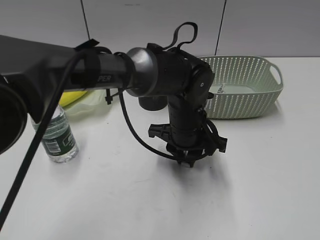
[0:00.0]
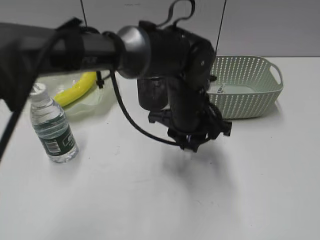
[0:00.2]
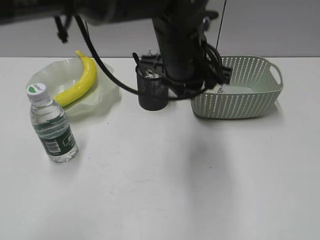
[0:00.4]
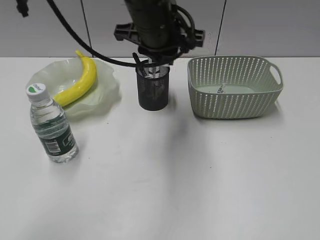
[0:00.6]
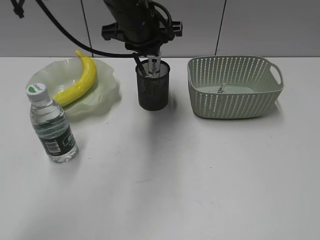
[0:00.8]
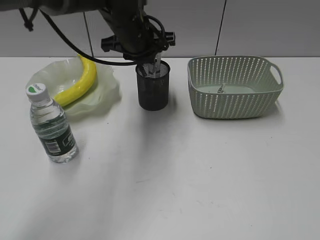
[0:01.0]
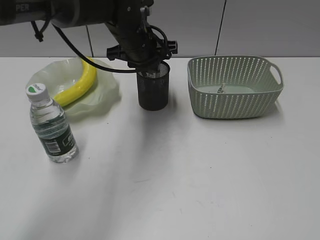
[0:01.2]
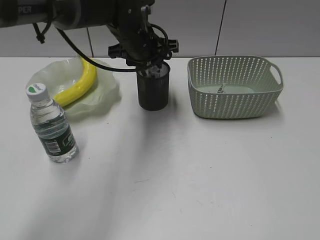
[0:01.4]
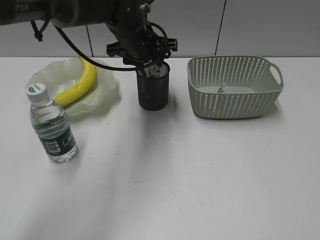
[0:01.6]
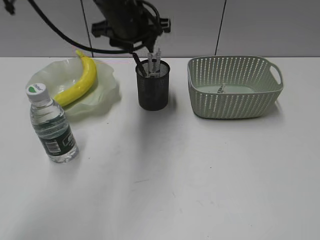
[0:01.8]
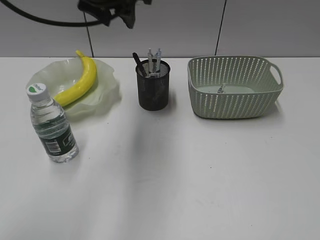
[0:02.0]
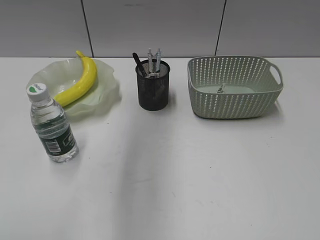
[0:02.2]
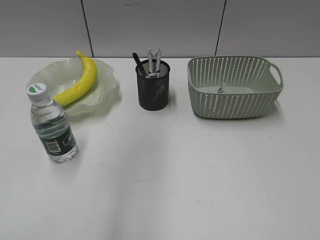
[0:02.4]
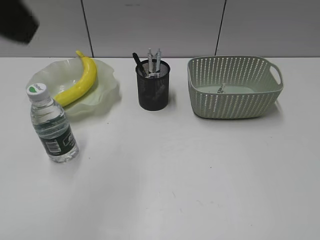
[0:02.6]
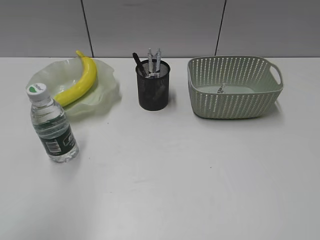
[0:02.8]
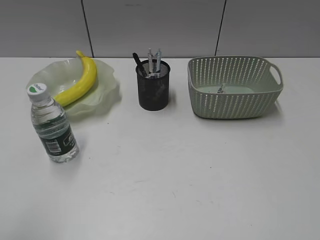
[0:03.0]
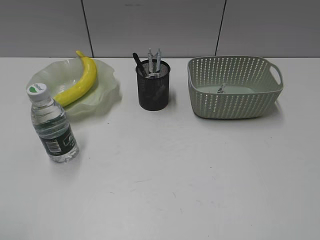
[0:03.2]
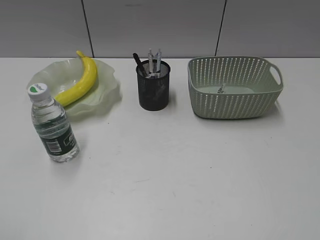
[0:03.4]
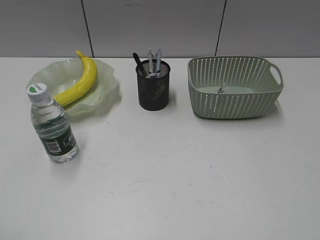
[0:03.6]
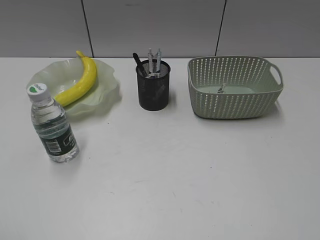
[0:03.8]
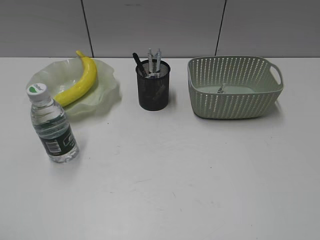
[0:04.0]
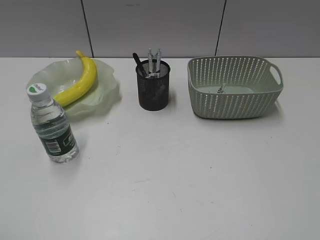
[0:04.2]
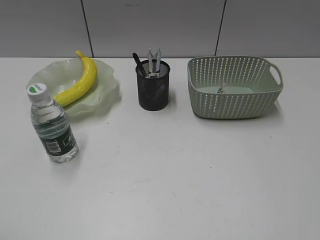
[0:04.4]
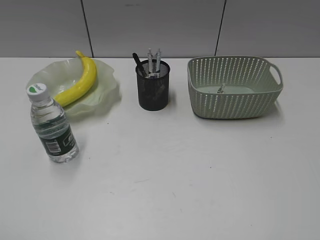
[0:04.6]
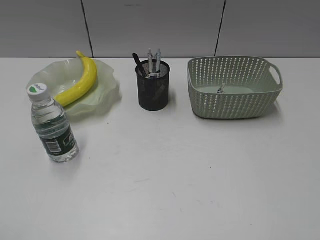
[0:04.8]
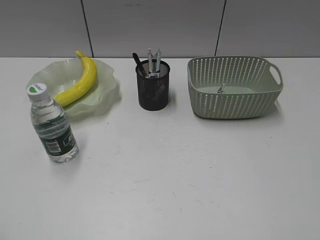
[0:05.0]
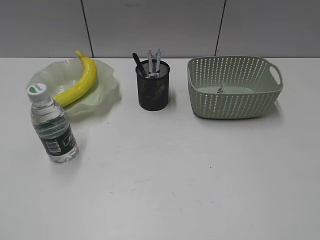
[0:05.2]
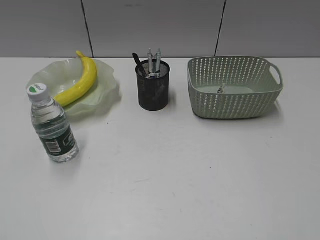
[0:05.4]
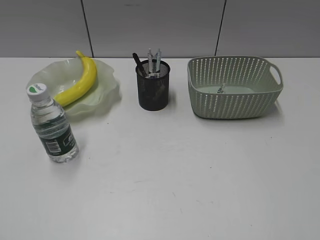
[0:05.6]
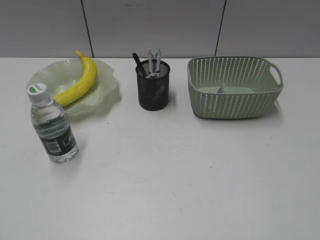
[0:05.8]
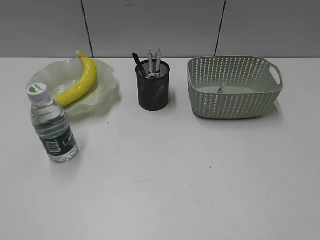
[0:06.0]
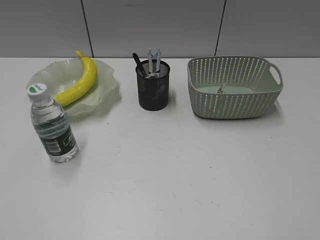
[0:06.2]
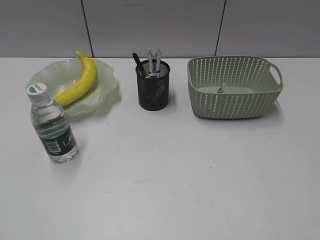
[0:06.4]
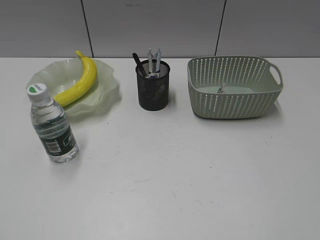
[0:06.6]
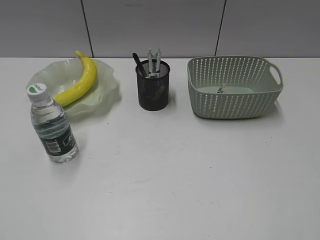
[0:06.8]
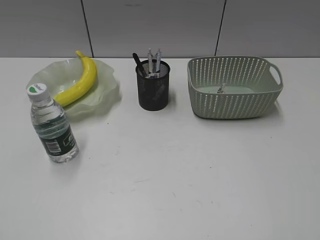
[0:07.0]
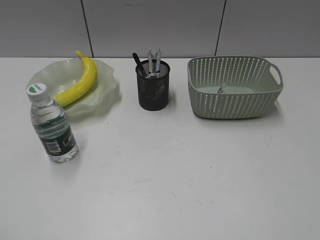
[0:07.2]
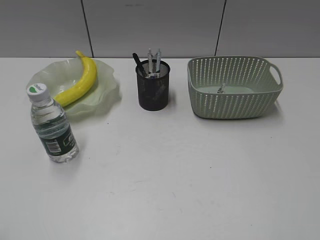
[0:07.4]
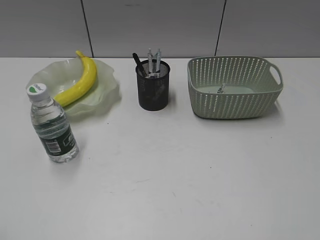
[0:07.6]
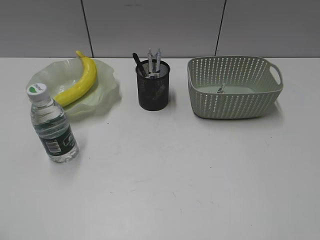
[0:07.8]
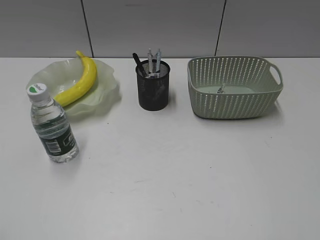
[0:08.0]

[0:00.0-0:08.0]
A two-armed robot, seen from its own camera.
Step, 0:00.0 to 0:01.4: Place the eraser in pen holder with left gripper.
0:00.0 to 0:01.6: The left gripper travels forward, upward and to the left by about 20 cm, and opens up.
0:01.6 to 0:03.2: The left gripper goes some 50 cm backward and to the left.

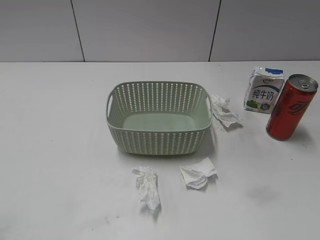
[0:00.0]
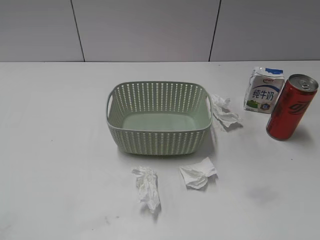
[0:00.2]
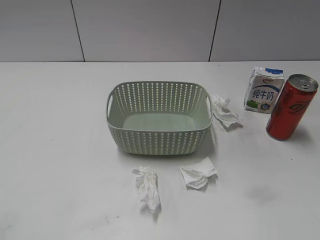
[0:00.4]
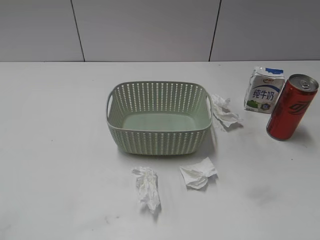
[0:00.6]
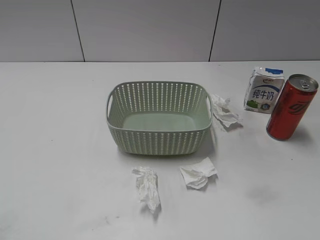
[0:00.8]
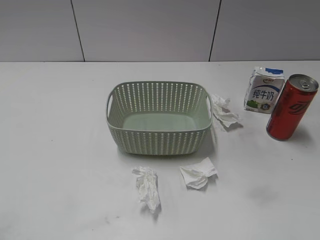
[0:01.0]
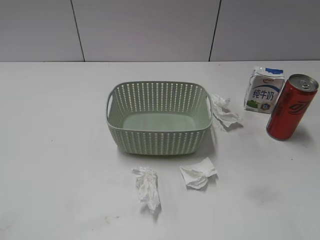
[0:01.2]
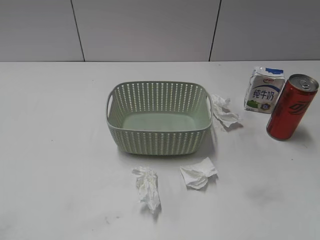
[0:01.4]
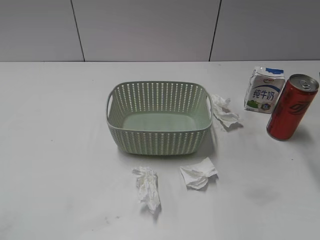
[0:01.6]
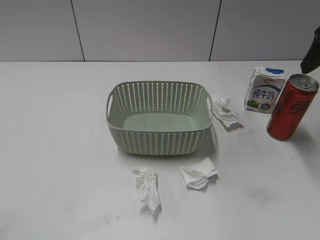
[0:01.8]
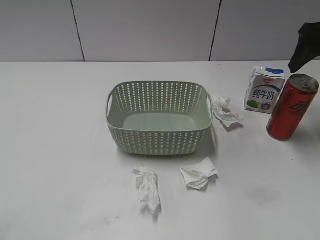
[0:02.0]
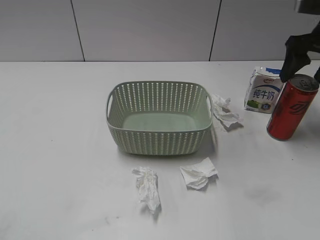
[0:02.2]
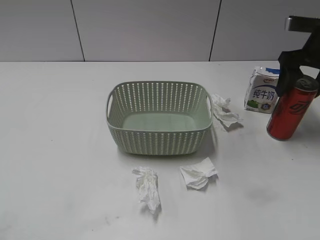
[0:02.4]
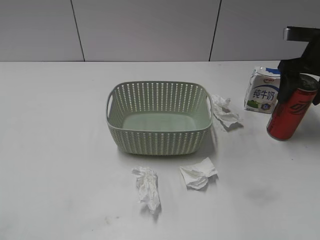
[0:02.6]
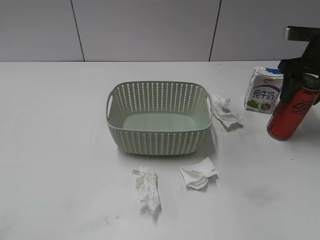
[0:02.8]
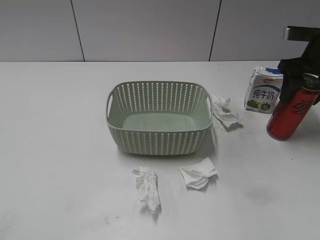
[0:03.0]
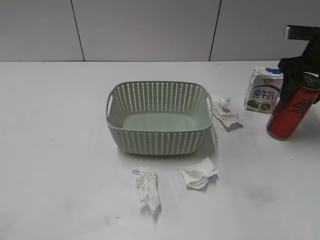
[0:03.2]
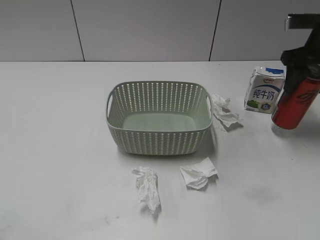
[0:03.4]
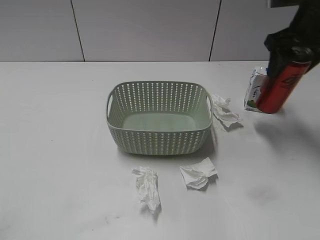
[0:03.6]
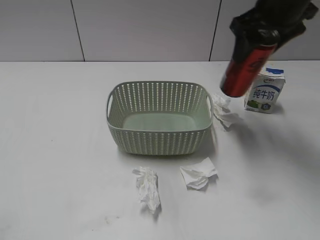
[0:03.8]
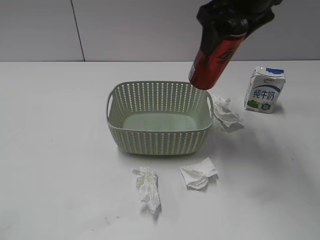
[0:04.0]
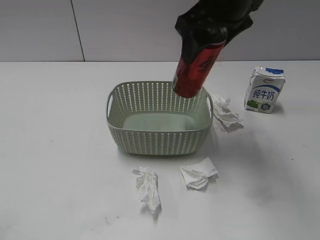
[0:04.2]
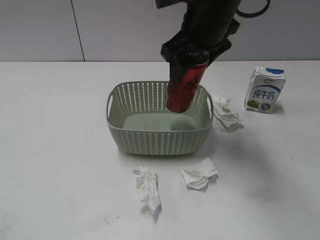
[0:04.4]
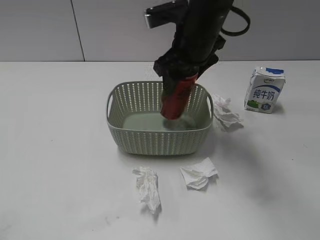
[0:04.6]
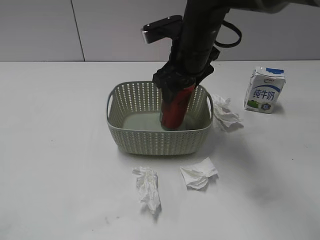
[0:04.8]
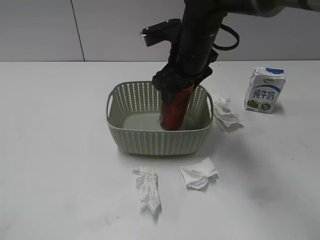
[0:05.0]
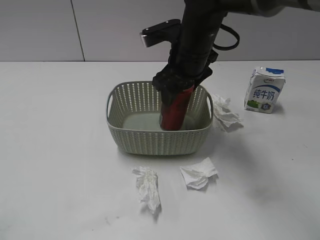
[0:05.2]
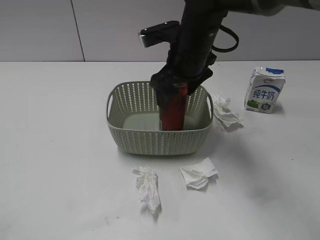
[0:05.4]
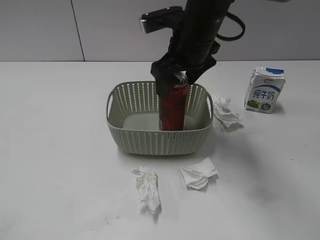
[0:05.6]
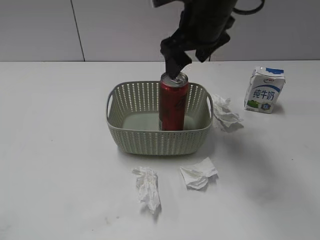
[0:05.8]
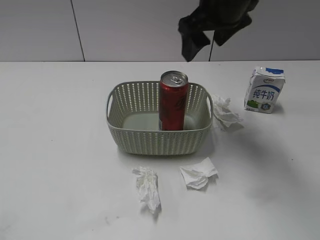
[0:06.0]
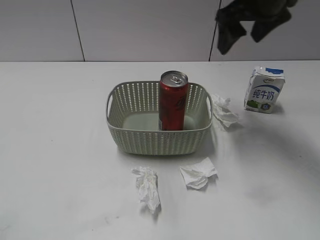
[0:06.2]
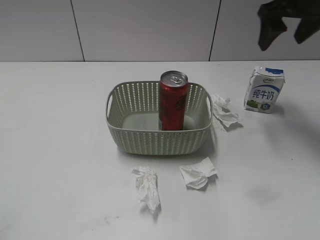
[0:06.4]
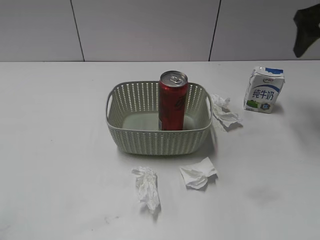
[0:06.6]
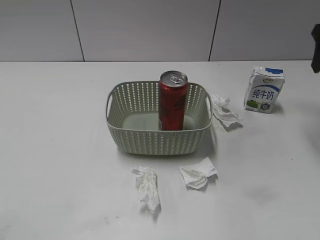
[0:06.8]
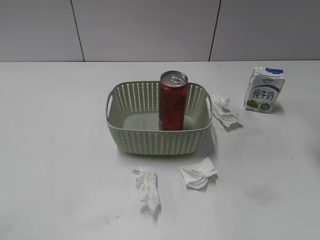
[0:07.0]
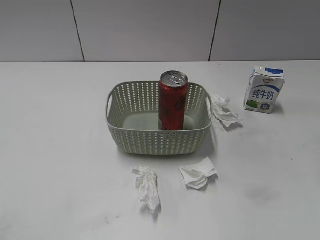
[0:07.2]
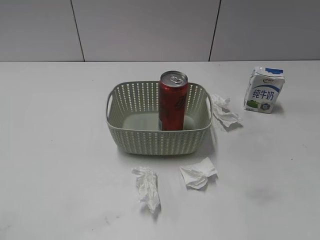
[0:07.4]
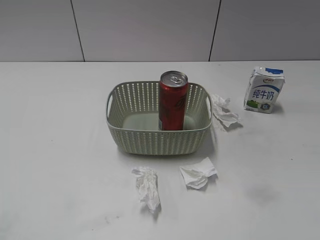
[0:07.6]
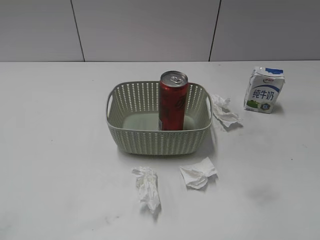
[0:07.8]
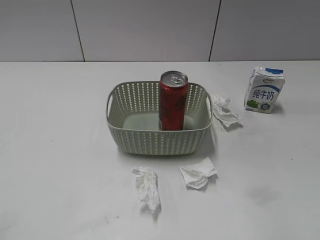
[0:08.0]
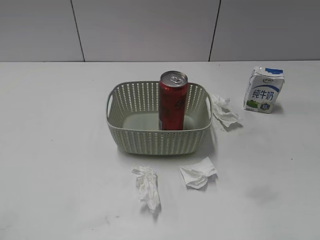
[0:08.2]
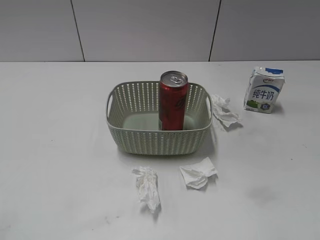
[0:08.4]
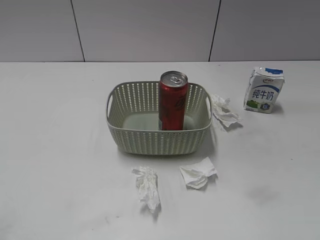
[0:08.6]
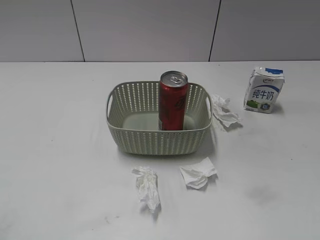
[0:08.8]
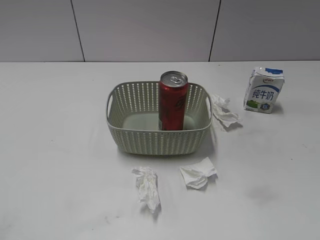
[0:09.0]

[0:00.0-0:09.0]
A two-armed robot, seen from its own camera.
Step, 0:01.8 to 0:03.2: Grasp the cola can with right gripper.
Step, 0:03.4 to 0:05.8: Place the cola can in the basket with right gripper.
0:01.6 to 0:03.0: The right gripper heads forward and downward, covering approximately 20 cm, and closes up.
0:03.0 to 0:04.4: The right gripper heads to the left, covering approximately 20 cm.
0:04.4 to 0:06.0: The right gripper goes downward and returns, roughly 10 cm each way, and opens up.
0:06.0 to 0:07.6: The right gripper travels to the right and backward by about 30 cm, and closes.
